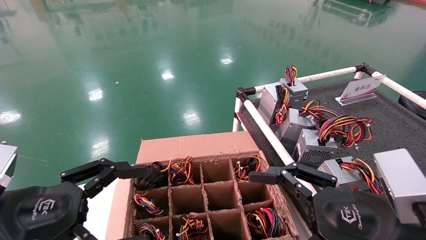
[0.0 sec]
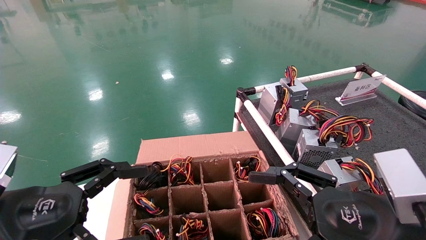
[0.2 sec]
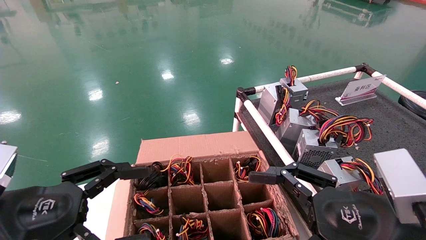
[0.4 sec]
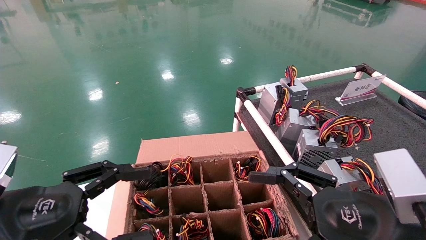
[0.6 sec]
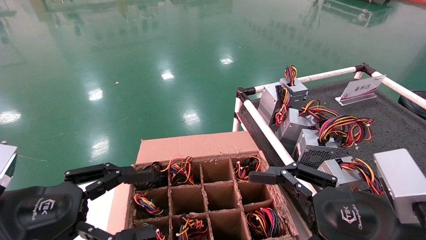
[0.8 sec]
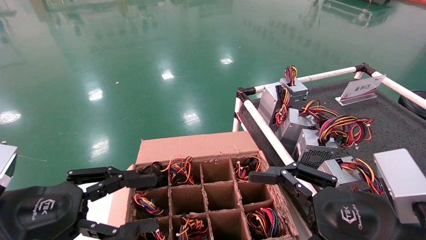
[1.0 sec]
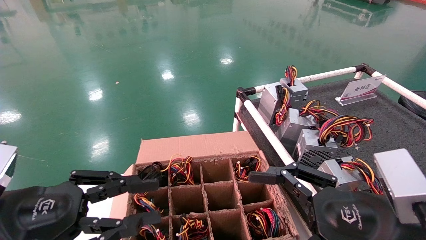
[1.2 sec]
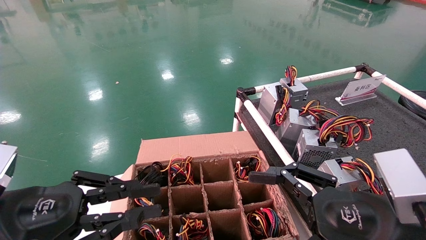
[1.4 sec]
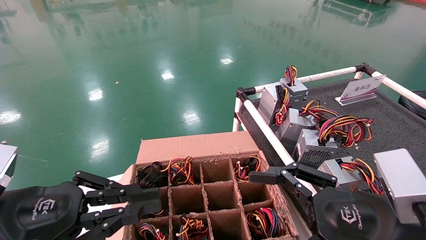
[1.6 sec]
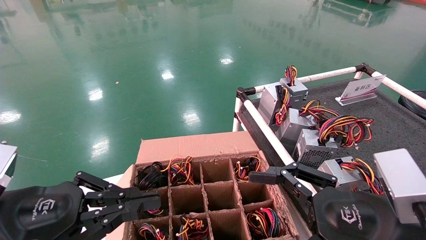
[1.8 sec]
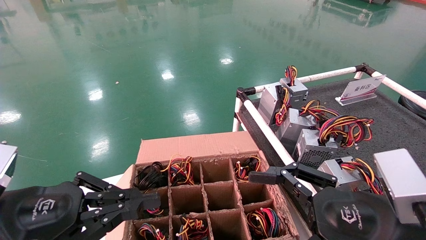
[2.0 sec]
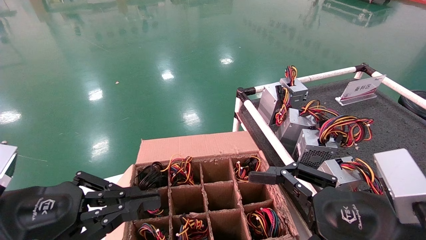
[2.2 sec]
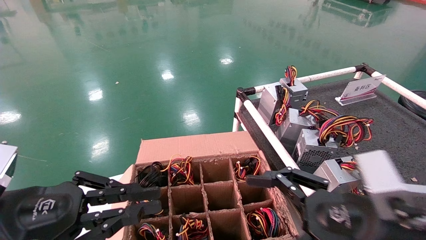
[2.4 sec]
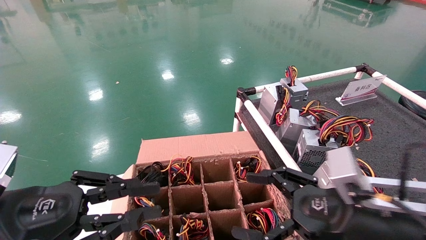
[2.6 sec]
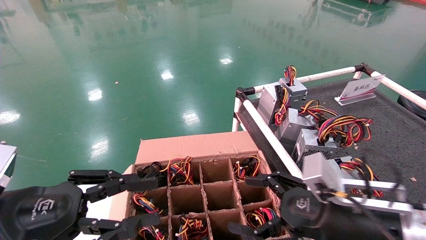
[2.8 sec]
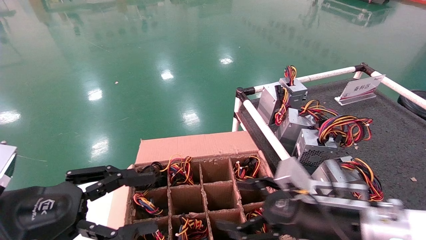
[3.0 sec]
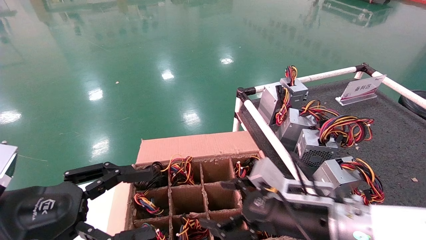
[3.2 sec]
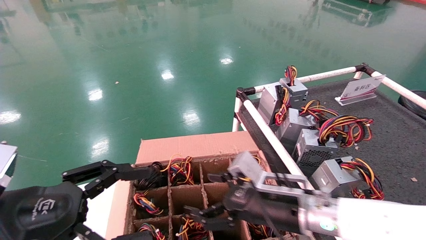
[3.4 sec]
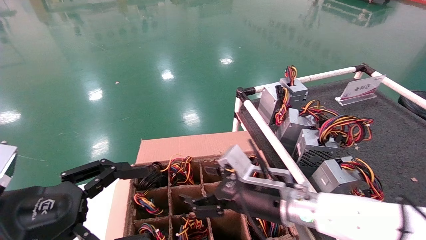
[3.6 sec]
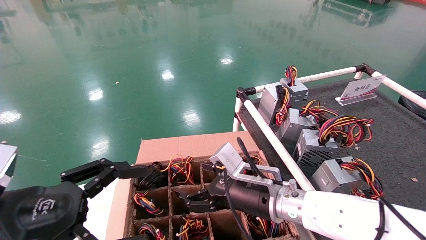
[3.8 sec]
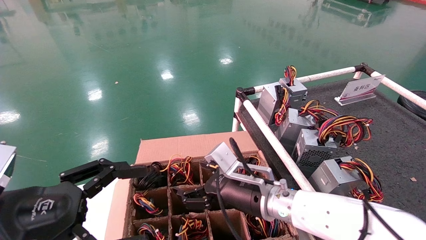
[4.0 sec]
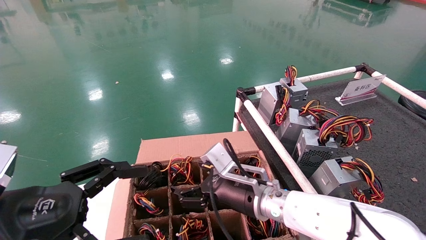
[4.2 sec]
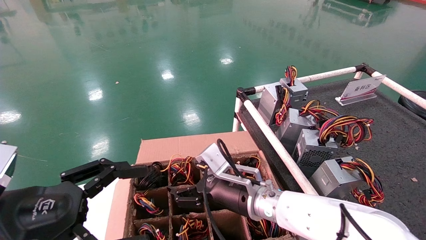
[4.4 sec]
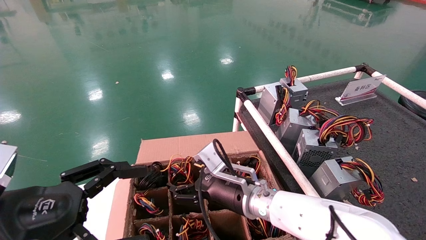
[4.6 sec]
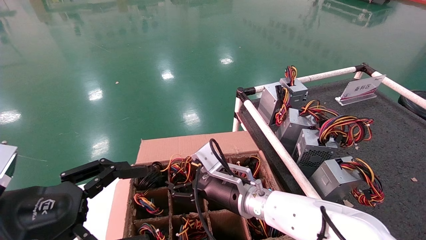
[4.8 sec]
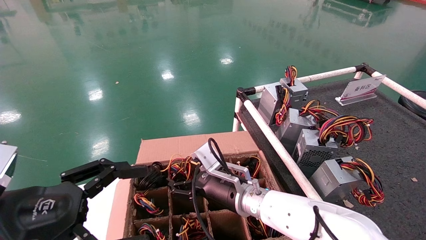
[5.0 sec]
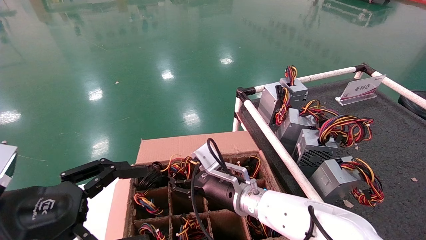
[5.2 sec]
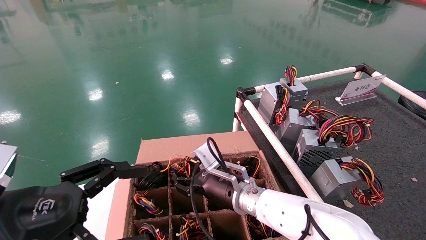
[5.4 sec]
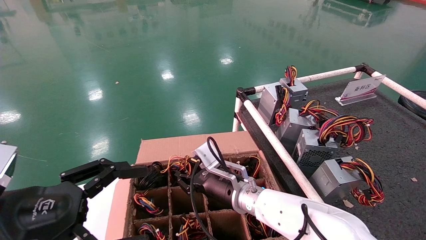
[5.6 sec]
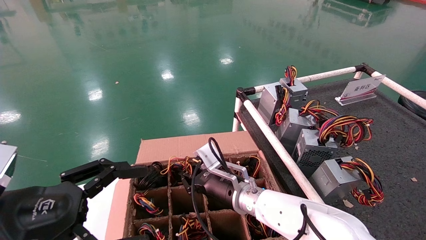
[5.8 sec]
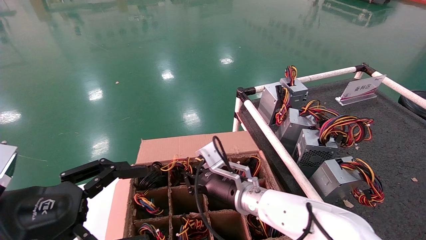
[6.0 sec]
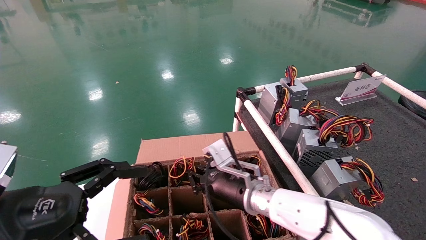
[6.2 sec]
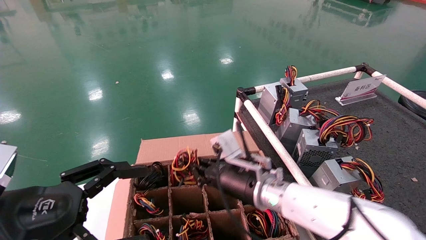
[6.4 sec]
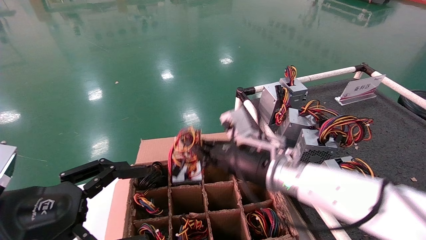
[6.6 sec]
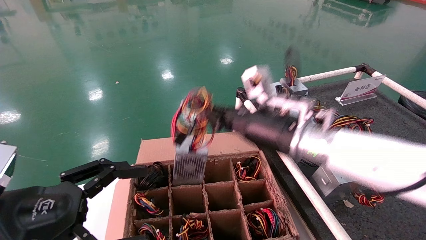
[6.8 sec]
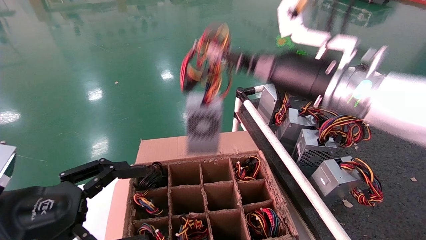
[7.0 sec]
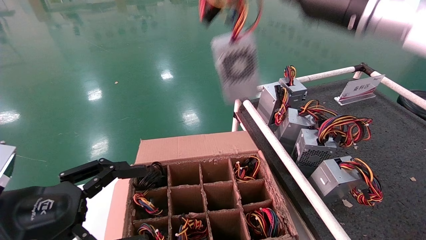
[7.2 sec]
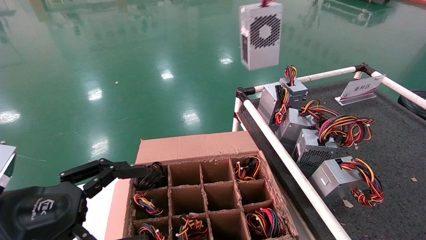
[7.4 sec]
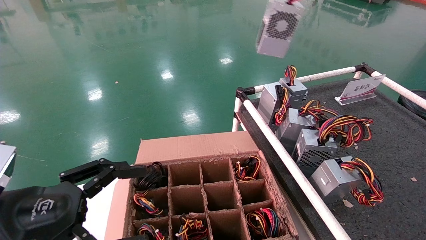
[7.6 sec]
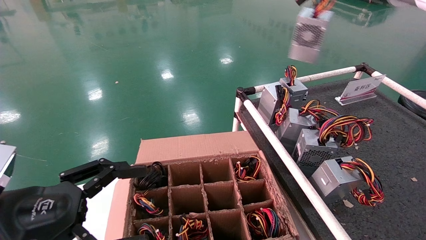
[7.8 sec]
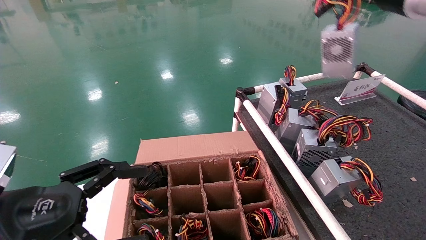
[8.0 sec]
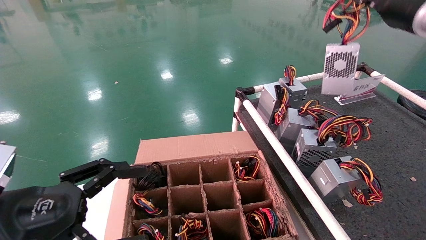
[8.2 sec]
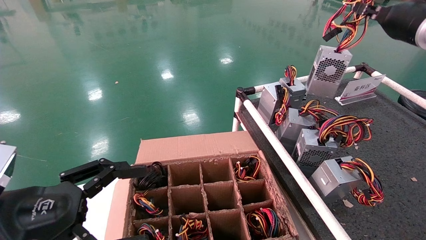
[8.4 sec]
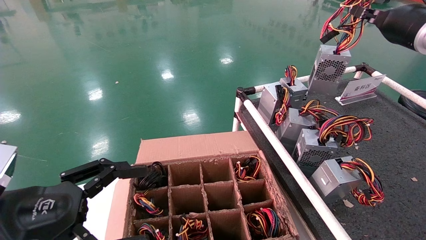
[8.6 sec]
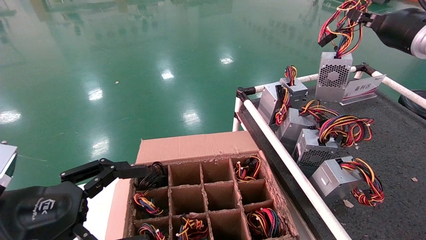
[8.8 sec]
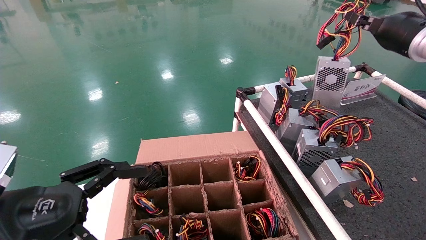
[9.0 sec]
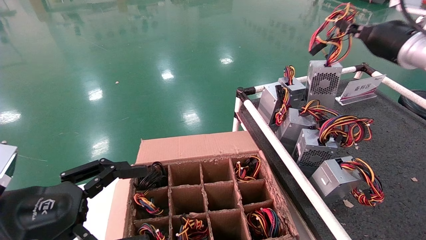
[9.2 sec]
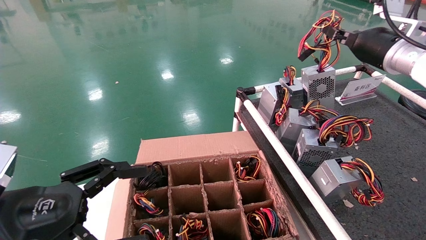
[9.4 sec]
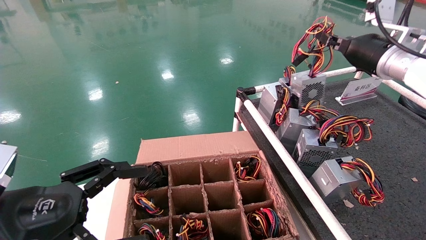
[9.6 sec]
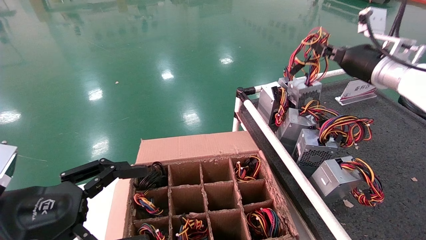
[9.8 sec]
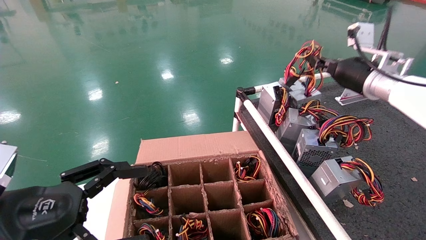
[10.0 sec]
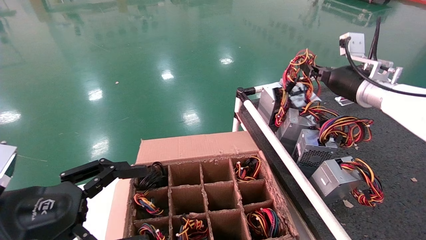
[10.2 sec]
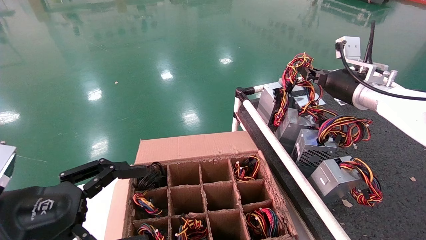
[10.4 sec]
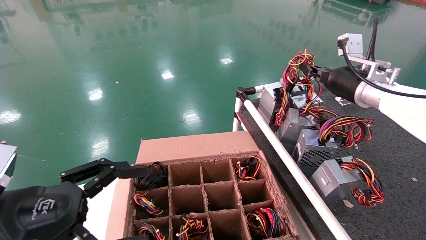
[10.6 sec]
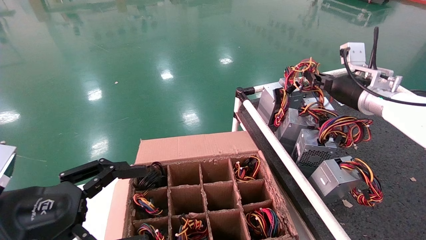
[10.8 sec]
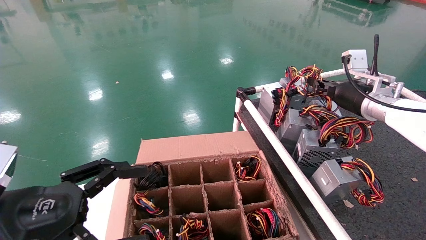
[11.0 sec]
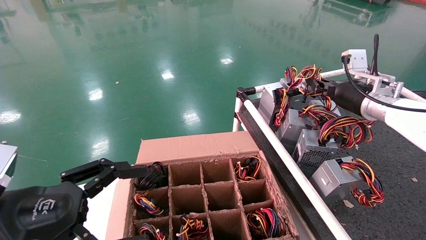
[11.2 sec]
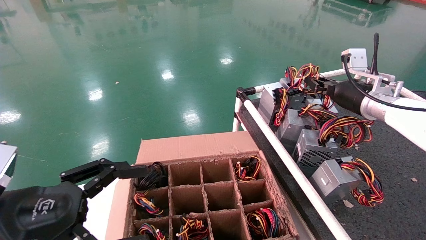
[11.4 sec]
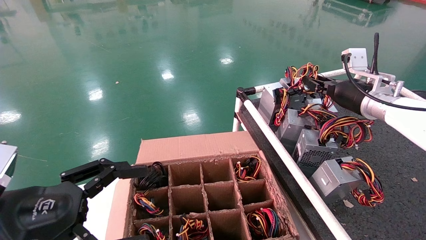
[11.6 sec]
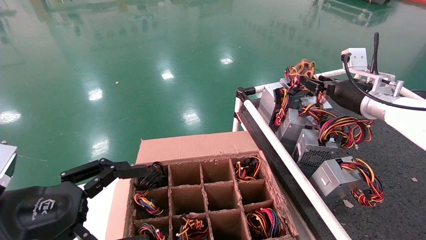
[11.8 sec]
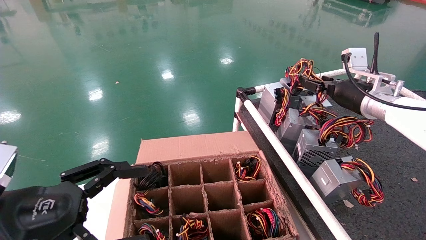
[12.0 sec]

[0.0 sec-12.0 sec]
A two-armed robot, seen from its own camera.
Step, 2.8 sec to 6.2 sec: Grab and lift the power supply from the large box.
Step, 6.4 sec to 11.8 sec: Place the power supply on the operating table.
0.0 sec to 1.6 sec: The left gripper closes its fingers.
1.6 sec to 3.0 sec: The right gripper is displaced forward and downward by approximately 10 cm.
3.0 sec to 4.4 sec: The left gripper opens up; the right gripper travels to the left and forward by about 15 cm.
4.4 sec to 6.0 sec: The right gripper closes its fingers.
6.0 sec to 7.6 sec: The right gripper is displaced upward and to the right by approximately 50 cm.
7.6 sec to 9.0 sec: The right gripper heads to the right and downward, covering about 15 cm.
9.0 sec to 10.4 sec: The right gripper heads downward and to the left, covering roughly 10 cm.
10.4 sec to 12.0 sec: The right gripper opens up.

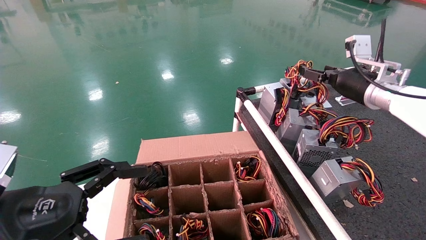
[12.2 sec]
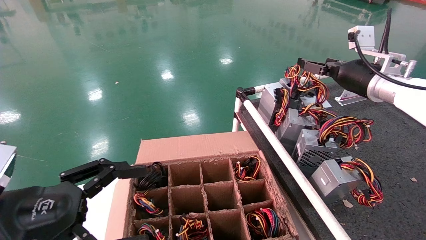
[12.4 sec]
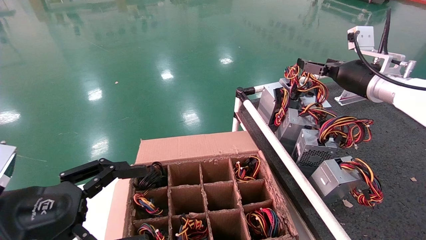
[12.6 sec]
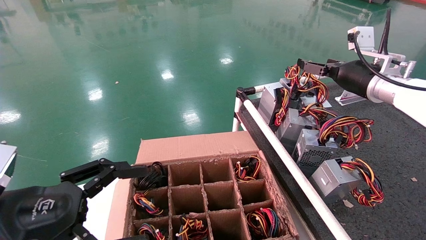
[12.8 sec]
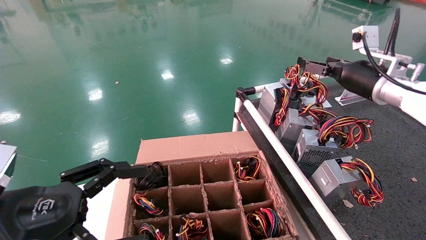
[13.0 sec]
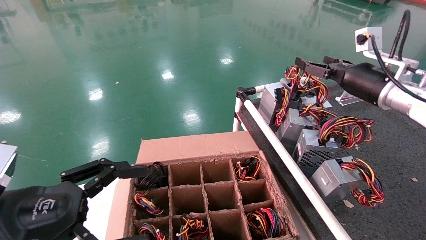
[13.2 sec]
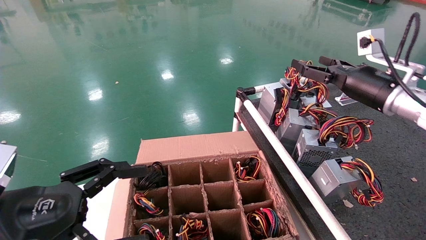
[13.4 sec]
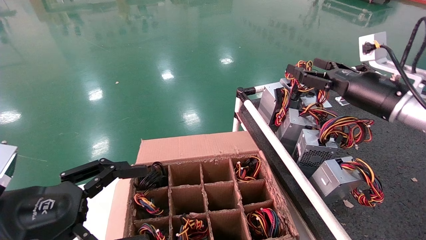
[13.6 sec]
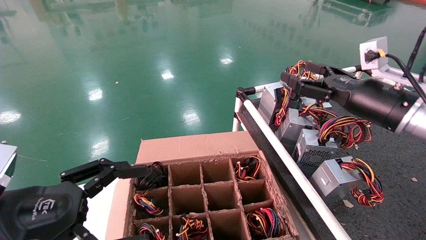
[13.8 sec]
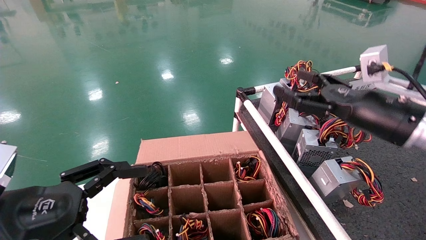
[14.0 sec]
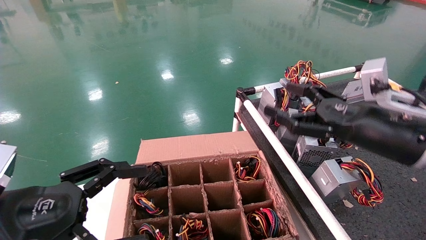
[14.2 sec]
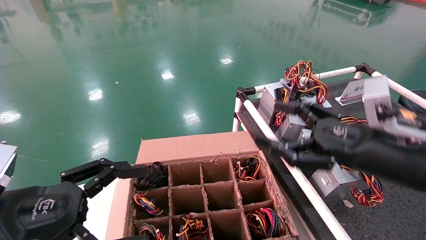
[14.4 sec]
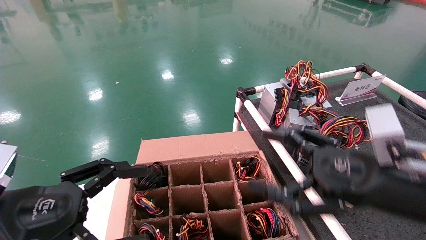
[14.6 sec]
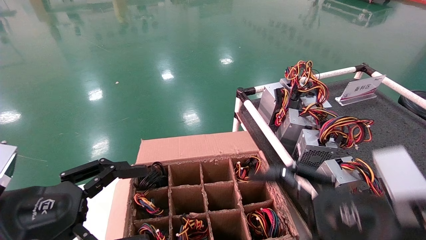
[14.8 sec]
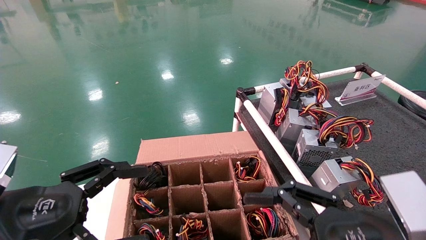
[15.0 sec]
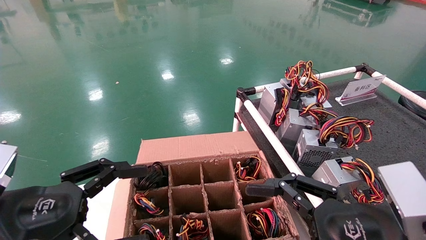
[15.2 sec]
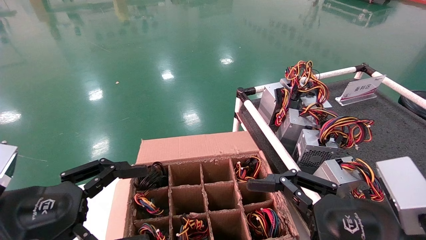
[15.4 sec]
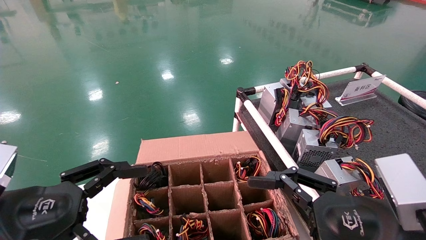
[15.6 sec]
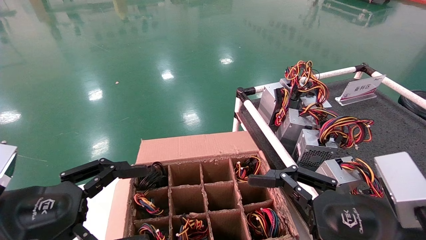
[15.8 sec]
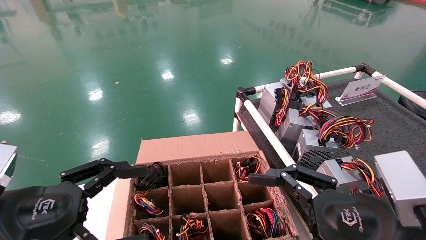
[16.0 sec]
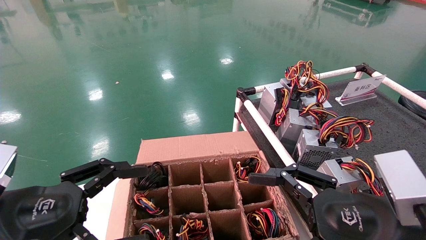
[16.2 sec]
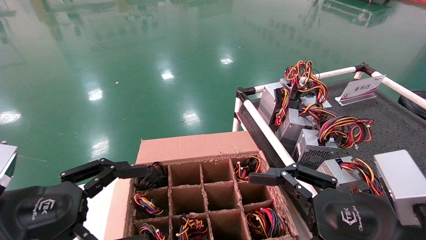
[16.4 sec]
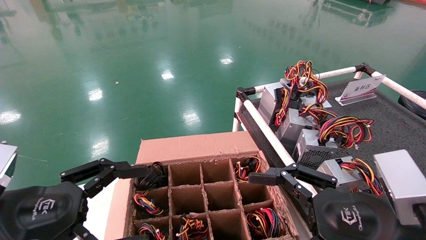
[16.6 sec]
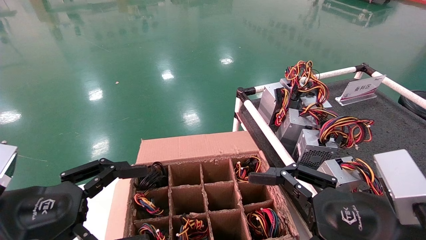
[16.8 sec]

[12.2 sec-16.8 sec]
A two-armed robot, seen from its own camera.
12.2 sec to 13.8 sec: The right gripper is displaced backward by approximately 10 cm.
13.8 sec to 15.2 sec: The right gripper travels backward, downward and to the left by approximately 20 cm.
15.2 sec to 16.8 sec: Both grippers stay about where they are.
